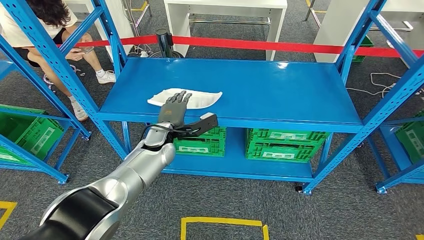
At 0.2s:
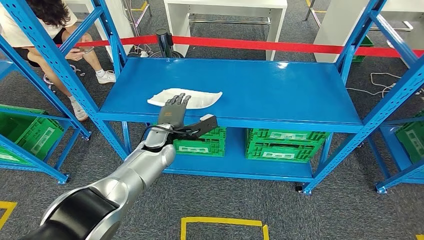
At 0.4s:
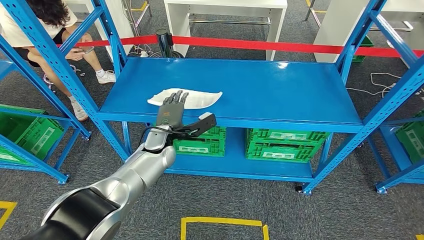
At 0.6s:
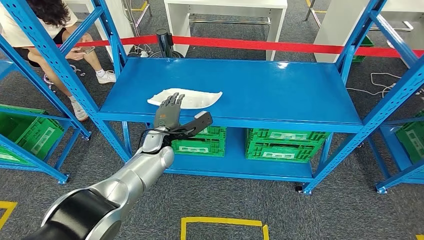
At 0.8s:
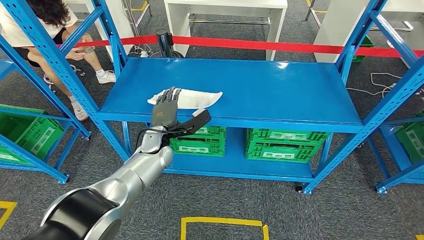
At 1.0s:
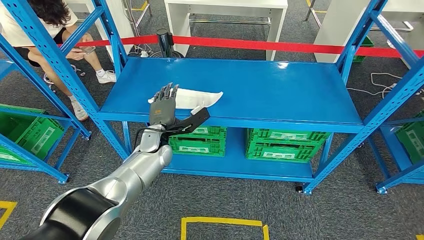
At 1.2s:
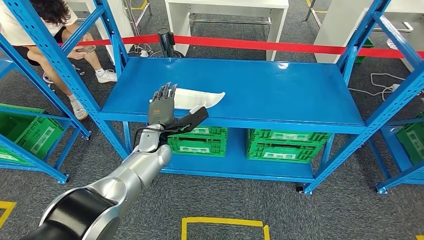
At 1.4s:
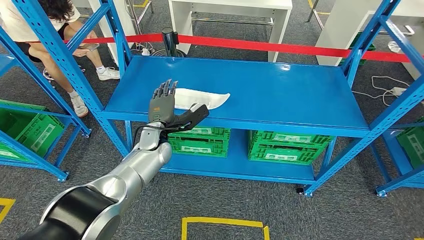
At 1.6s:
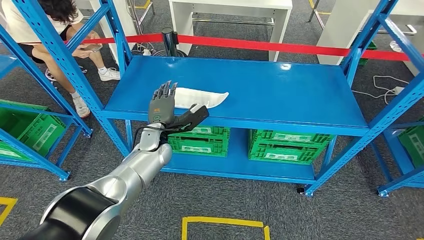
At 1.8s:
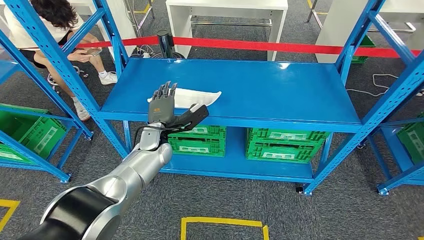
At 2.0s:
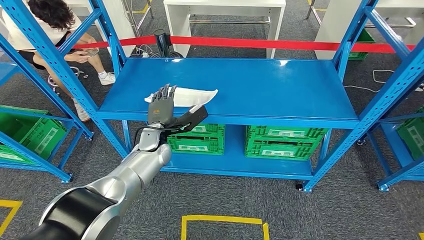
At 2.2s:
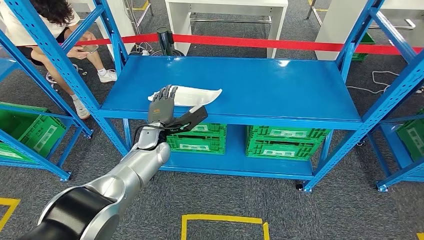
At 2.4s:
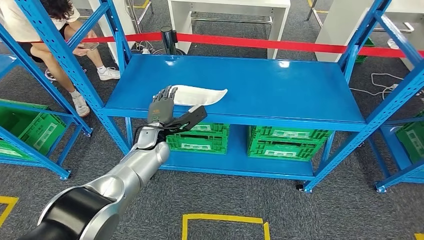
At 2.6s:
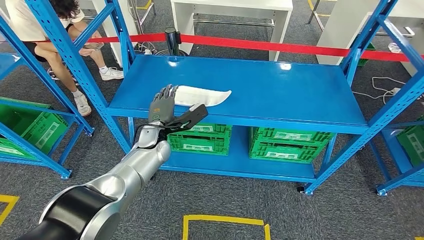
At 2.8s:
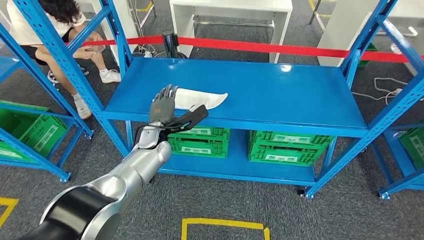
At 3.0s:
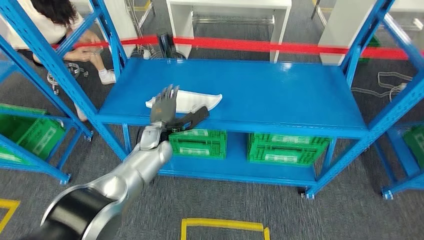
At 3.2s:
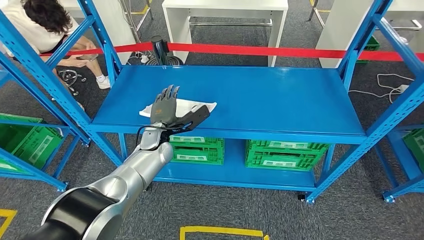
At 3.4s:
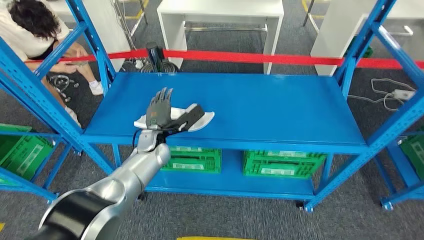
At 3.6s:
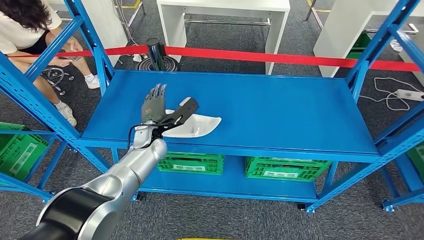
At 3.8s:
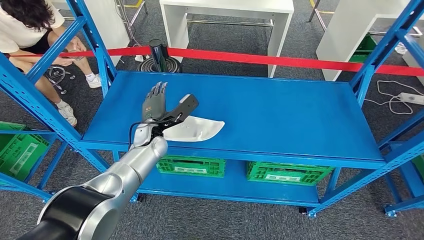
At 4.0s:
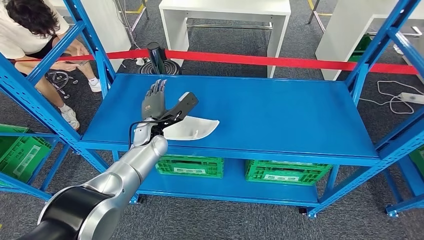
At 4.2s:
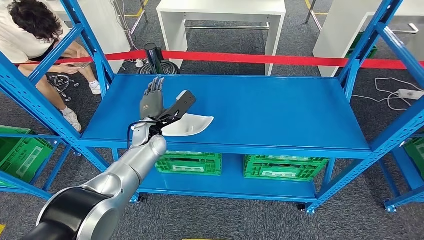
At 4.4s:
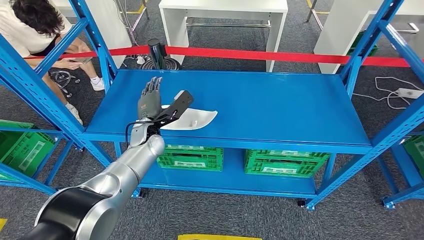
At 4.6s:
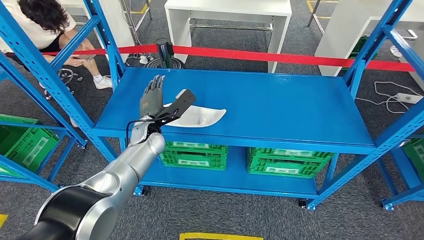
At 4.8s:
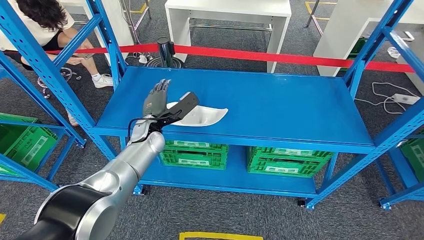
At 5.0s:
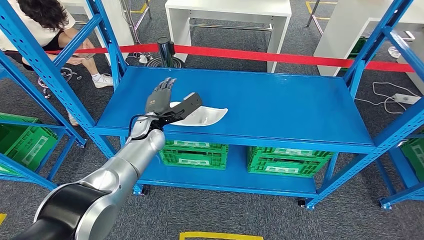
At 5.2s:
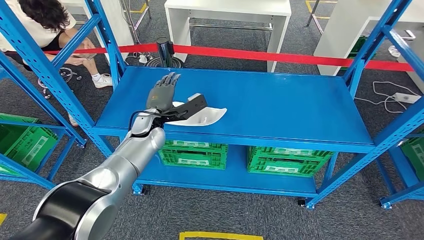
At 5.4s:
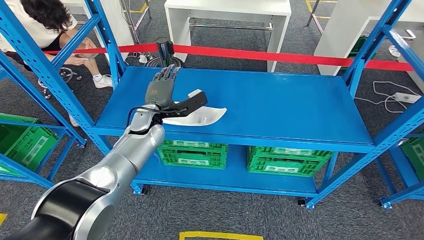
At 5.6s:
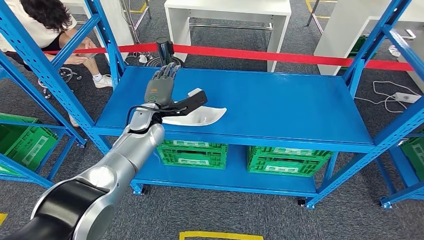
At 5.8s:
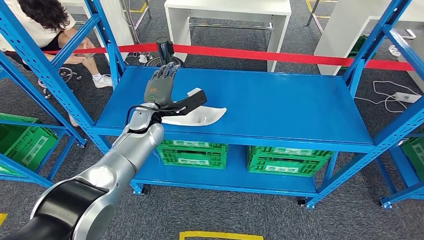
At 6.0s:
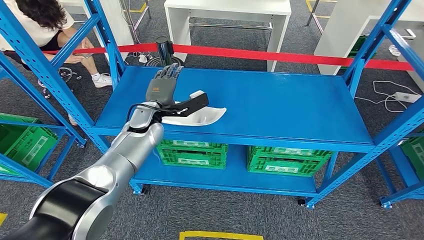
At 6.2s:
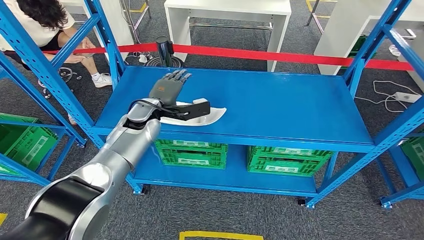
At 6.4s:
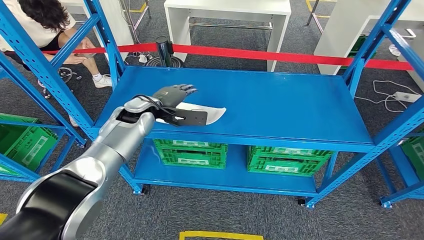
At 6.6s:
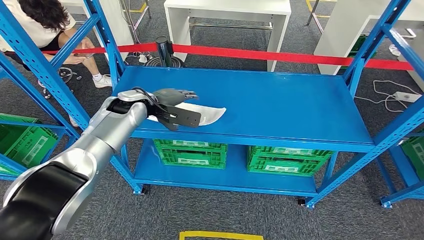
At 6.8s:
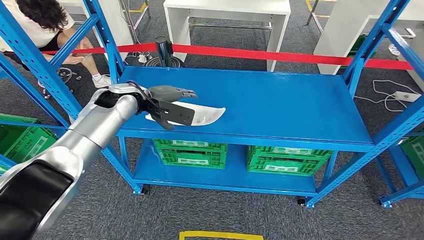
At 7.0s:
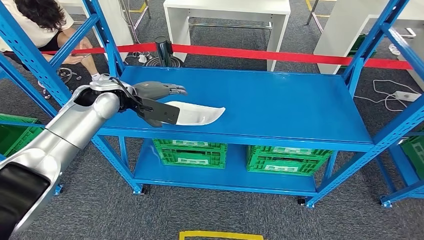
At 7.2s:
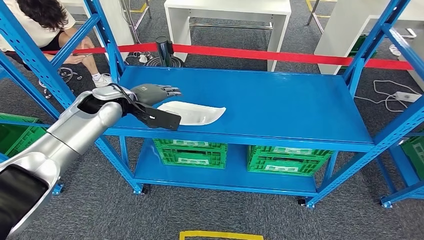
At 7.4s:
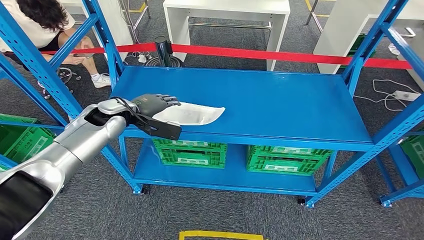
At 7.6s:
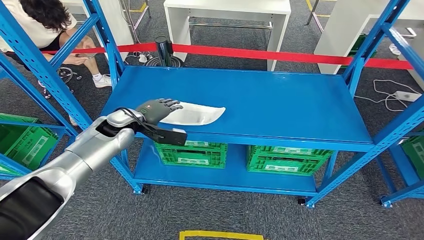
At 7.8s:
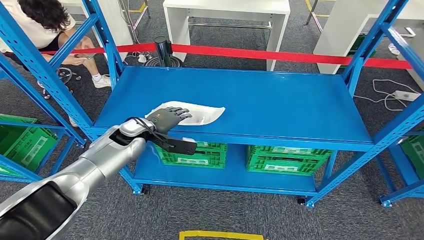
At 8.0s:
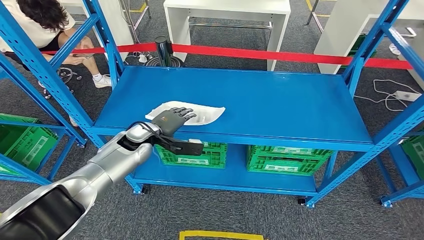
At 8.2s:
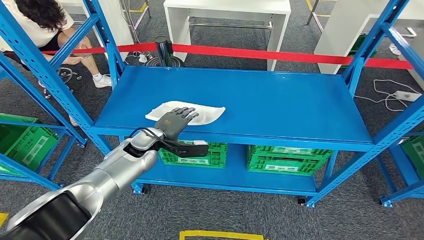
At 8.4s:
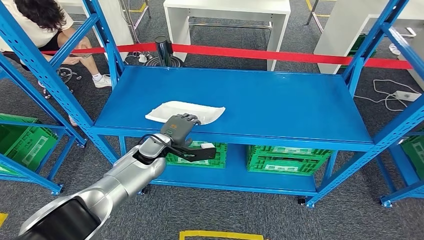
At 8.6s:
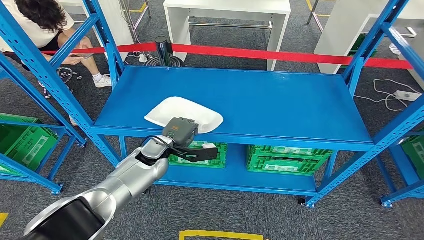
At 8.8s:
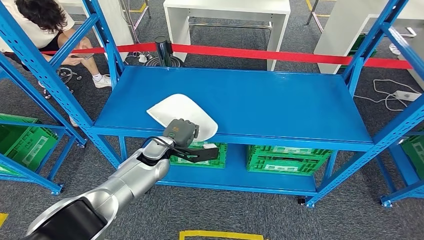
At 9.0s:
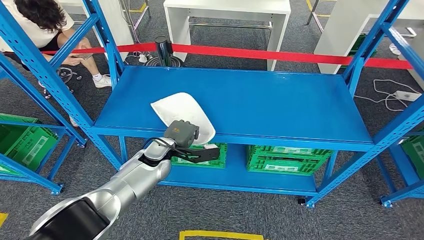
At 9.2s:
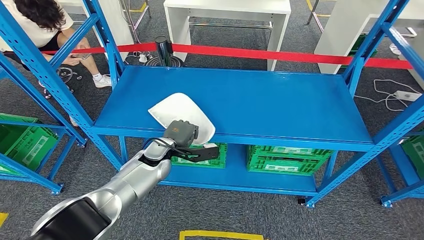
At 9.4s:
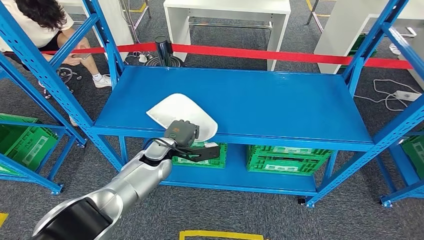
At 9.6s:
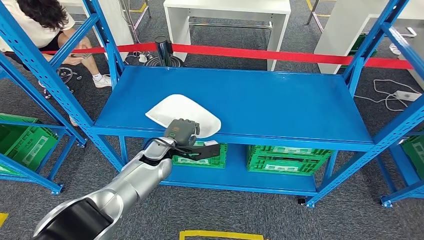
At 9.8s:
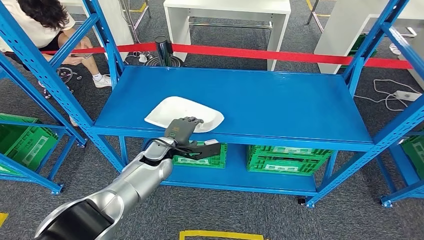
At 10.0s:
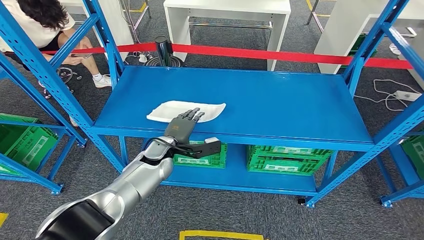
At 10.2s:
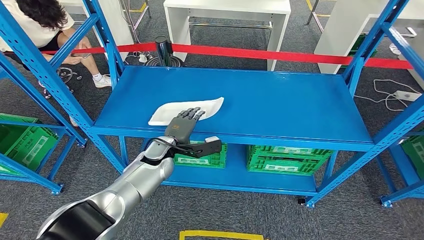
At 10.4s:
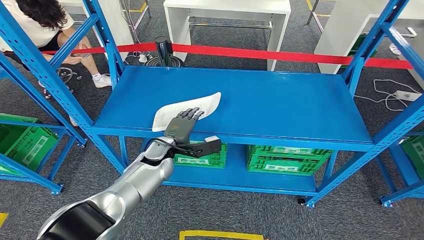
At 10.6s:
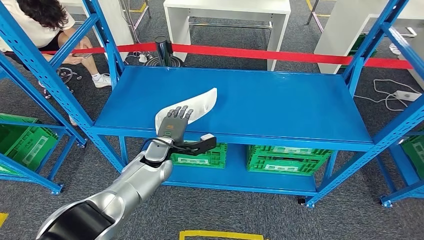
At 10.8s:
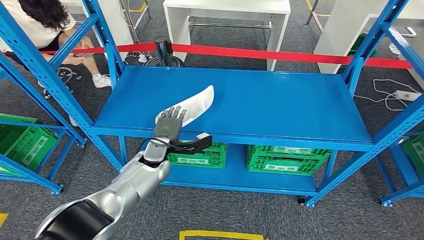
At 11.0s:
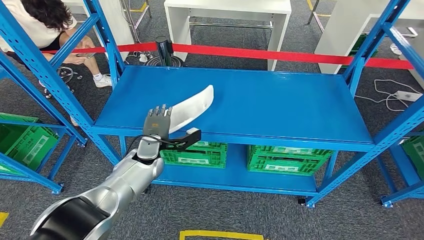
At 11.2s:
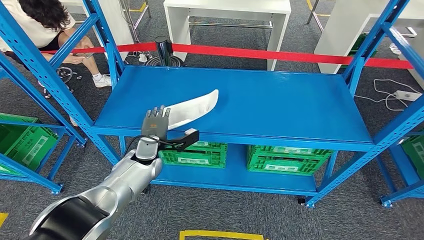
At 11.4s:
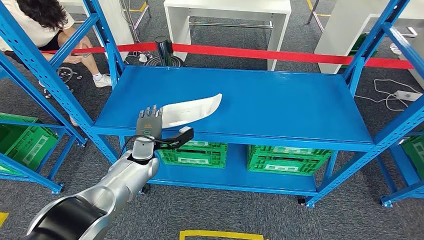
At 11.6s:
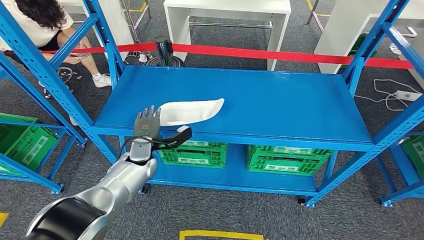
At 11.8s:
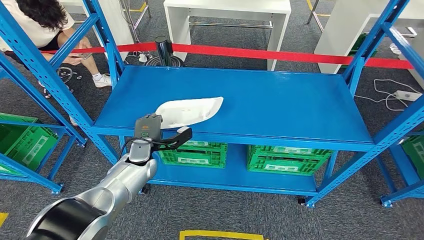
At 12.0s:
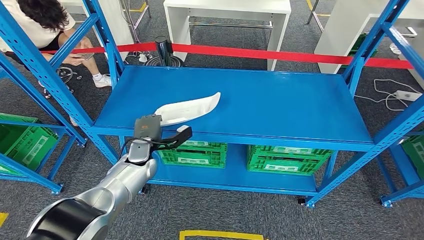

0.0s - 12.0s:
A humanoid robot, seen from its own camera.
1.6s - 3.0s: The hands make only small movements.
6.0s - 7.6s: The left hand shifts approximately 10 cm to the left, and reaches approximately 10 cm upward, then returns.
7.6s - 9.0s: The left hand shifts approximately 15 cm to the right and downward.
9.0s - 10.4s: The hands move only a little.
10.4s - 12.0s: The left hand travels to the left by about 5 cm.

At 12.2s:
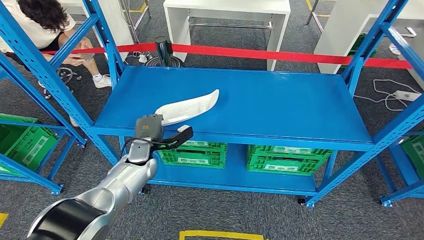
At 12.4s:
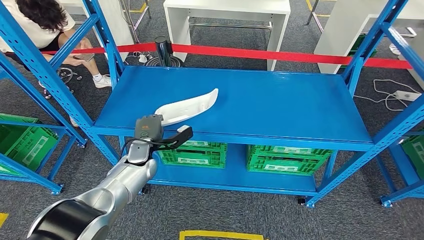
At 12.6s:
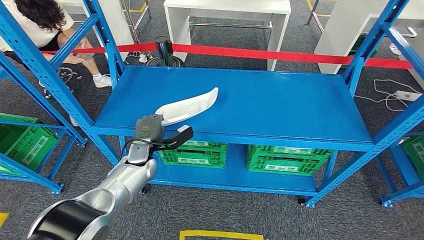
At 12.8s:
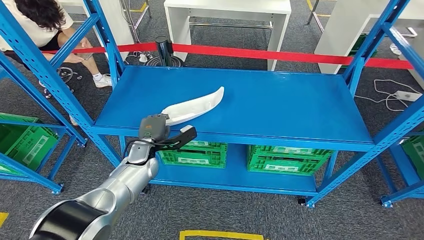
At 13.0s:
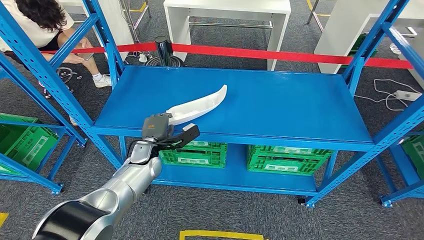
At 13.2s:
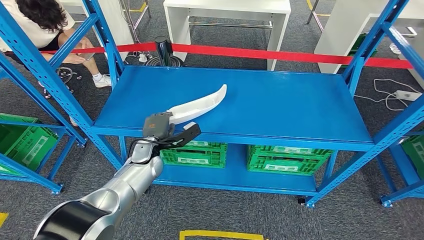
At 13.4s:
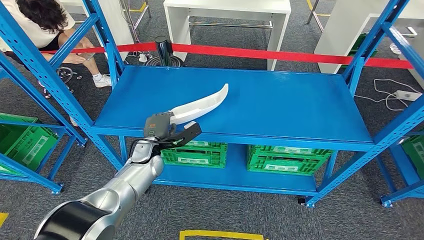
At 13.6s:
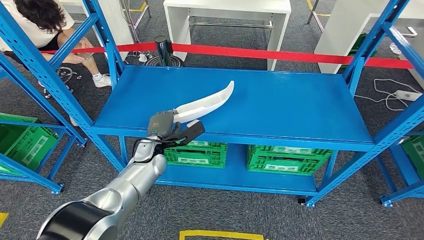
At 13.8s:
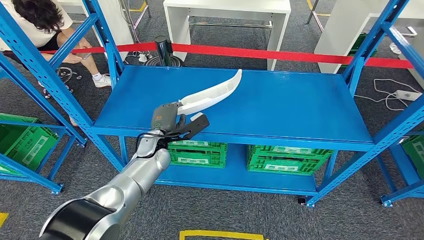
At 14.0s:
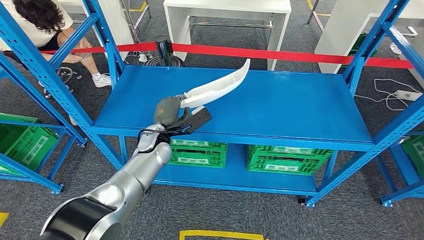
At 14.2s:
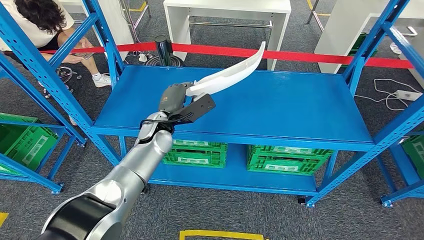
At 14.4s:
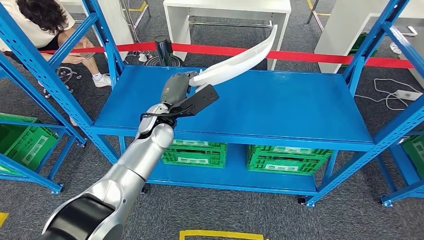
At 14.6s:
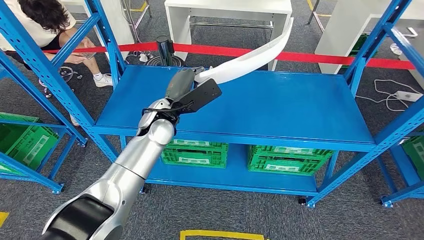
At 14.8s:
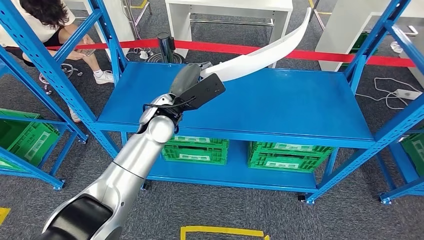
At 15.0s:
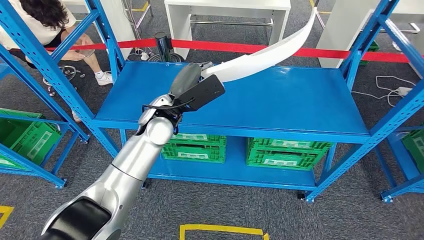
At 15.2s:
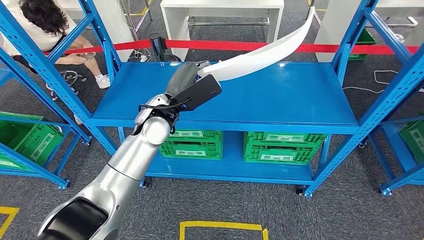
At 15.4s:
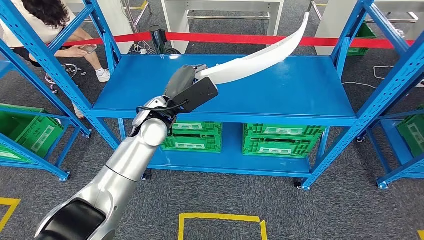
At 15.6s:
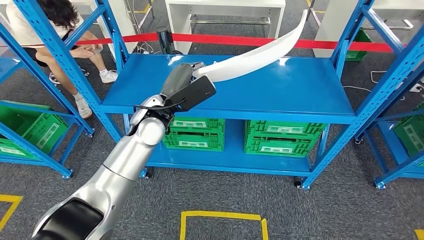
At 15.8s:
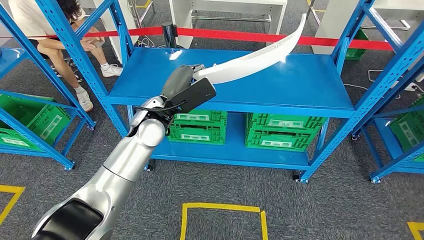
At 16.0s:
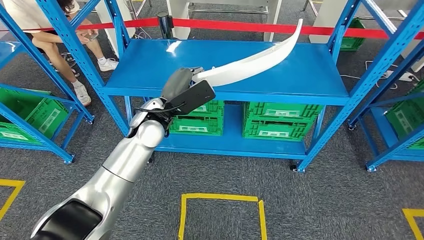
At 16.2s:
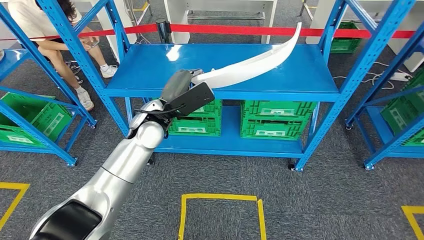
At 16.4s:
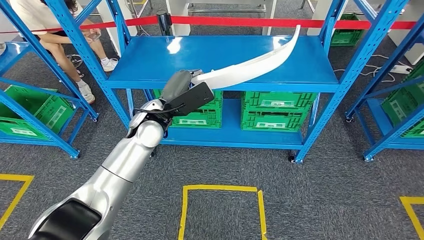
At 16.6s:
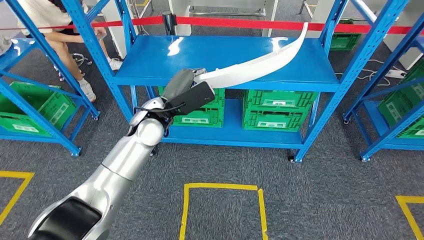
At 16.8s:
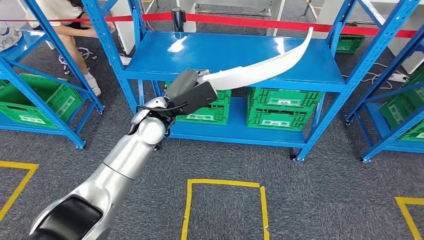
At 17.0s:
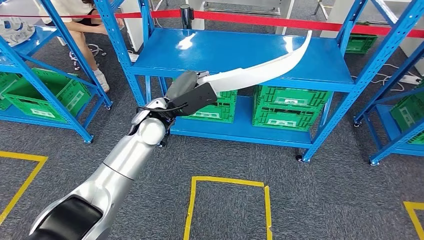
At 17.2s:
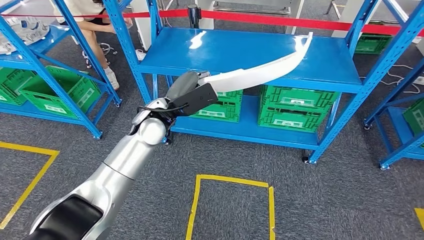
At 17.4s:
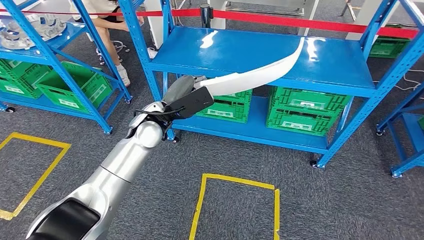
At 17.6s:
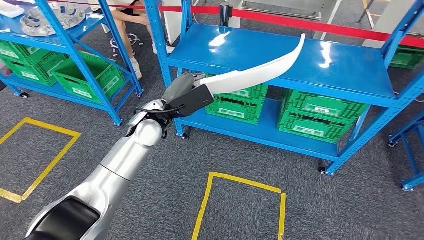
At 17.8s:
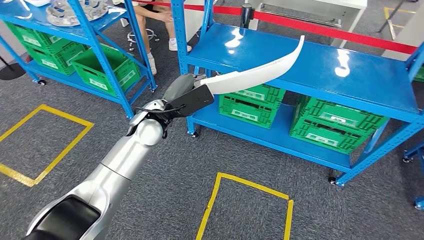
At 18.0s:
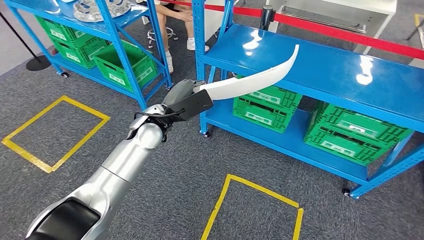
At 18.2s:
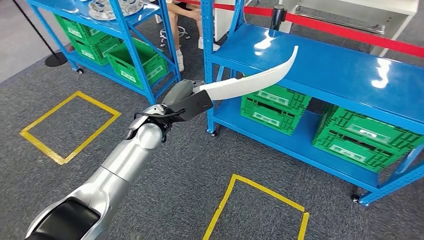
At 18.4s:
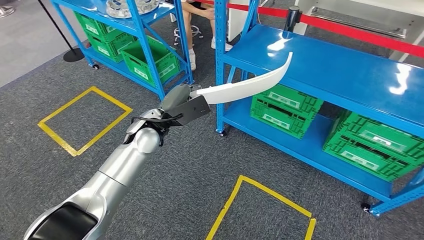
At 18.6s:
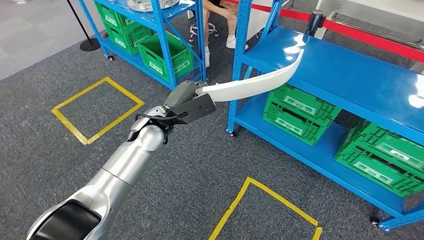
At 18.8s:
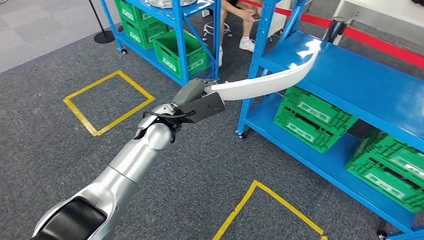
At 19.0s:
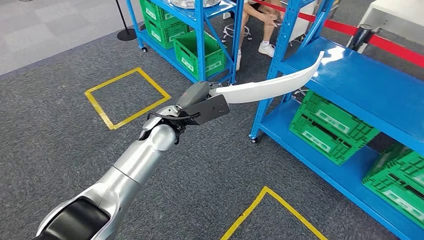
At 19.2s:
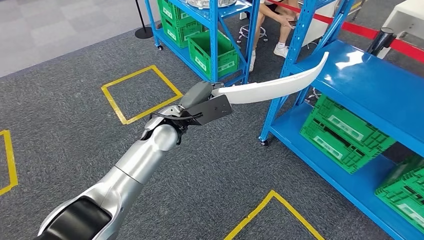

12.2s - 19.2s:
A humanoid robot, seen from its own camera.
Step, 12.2s - 14.8s: Pick up the small component from the shelf.
12.2s - 13.6s: The hands make only small movements.
